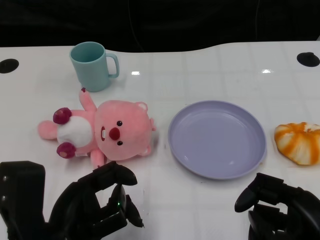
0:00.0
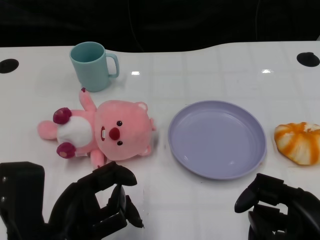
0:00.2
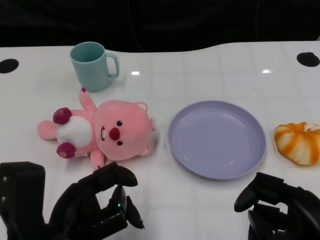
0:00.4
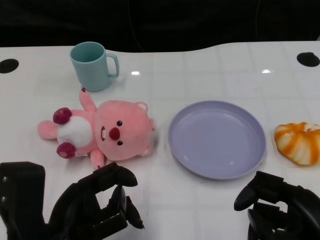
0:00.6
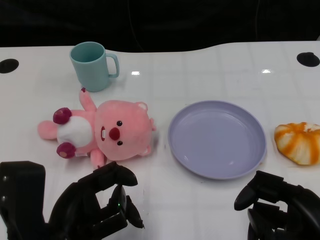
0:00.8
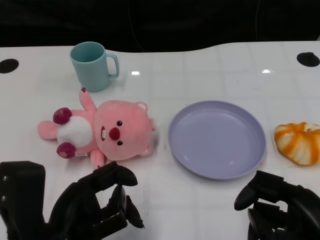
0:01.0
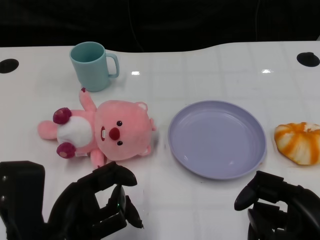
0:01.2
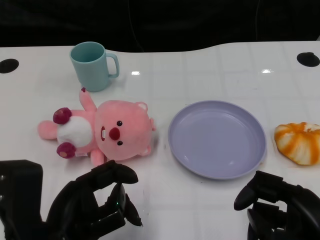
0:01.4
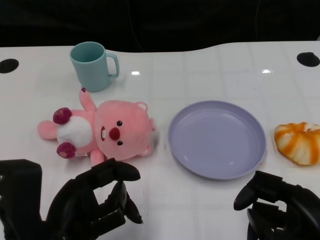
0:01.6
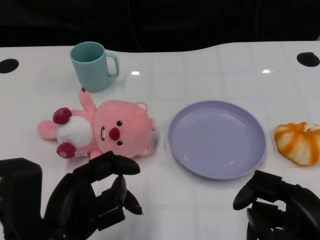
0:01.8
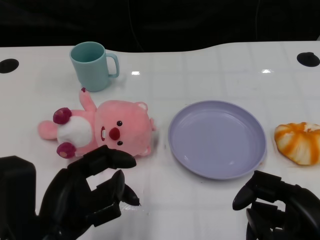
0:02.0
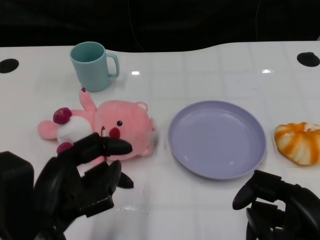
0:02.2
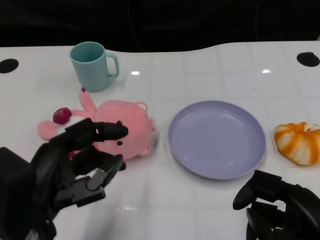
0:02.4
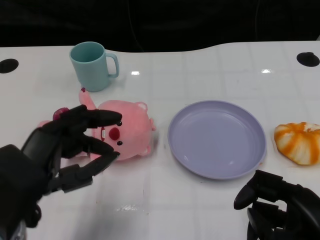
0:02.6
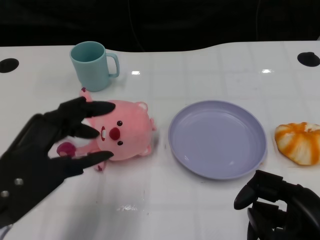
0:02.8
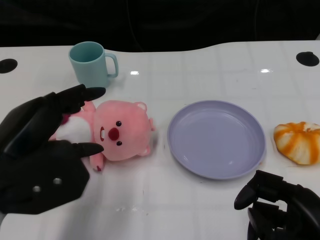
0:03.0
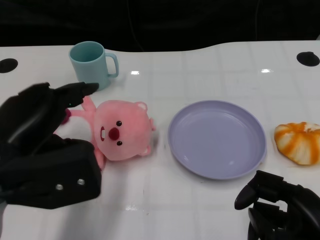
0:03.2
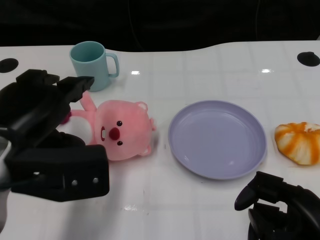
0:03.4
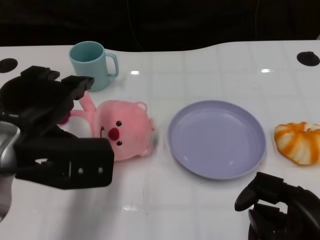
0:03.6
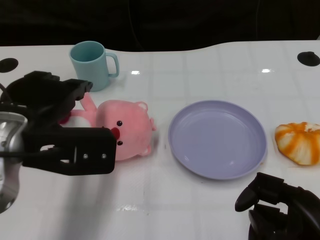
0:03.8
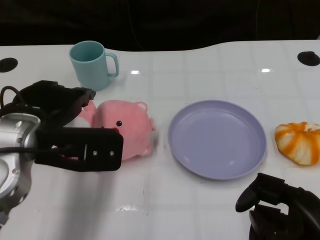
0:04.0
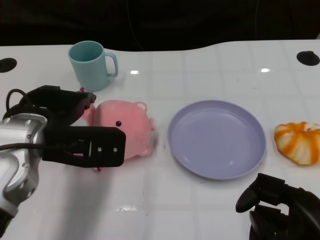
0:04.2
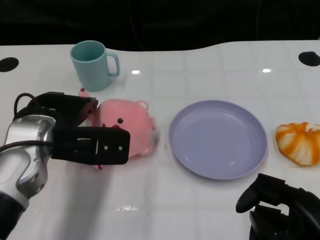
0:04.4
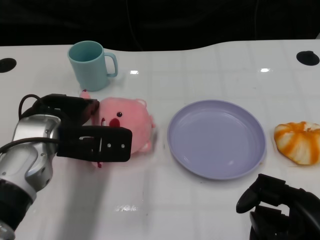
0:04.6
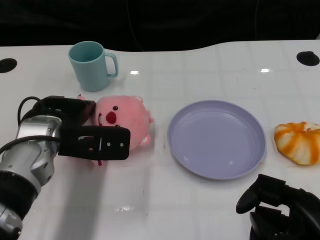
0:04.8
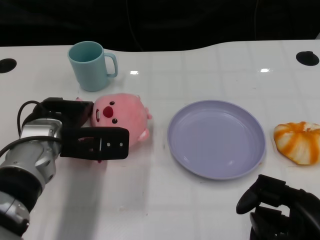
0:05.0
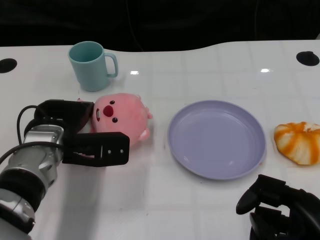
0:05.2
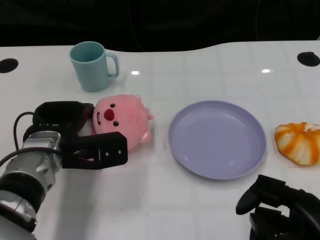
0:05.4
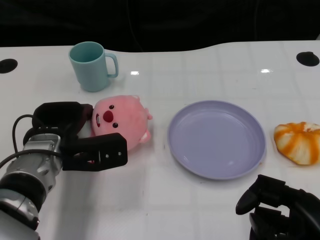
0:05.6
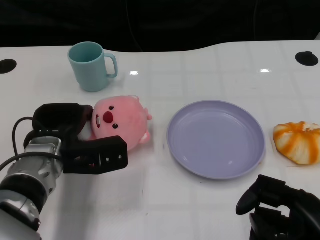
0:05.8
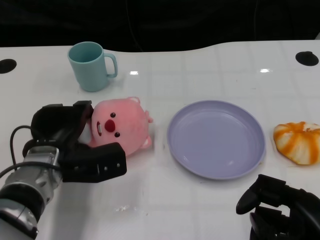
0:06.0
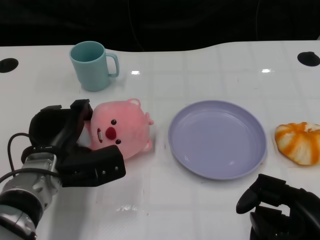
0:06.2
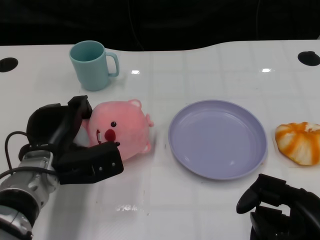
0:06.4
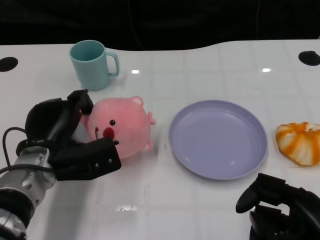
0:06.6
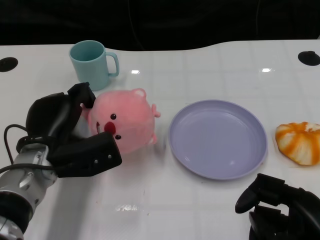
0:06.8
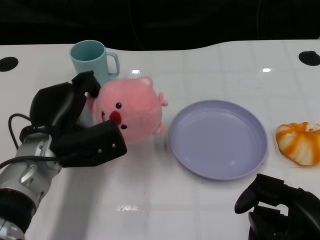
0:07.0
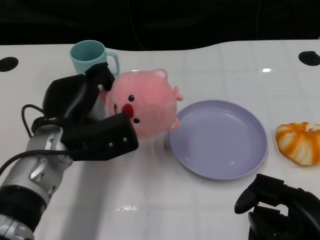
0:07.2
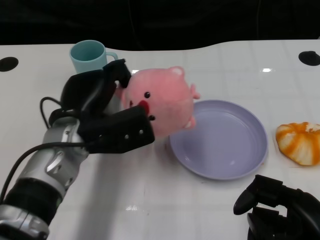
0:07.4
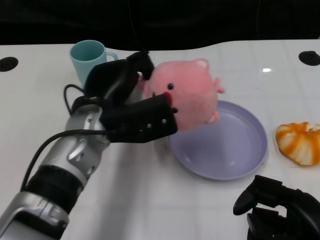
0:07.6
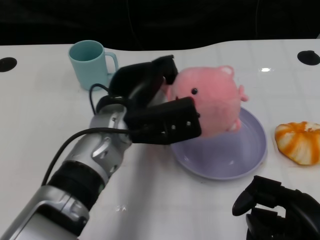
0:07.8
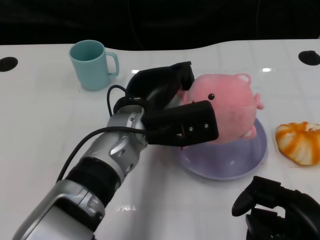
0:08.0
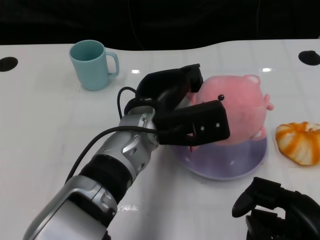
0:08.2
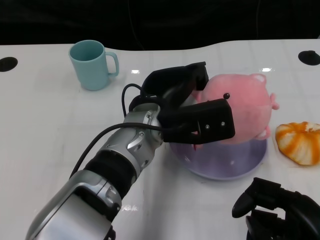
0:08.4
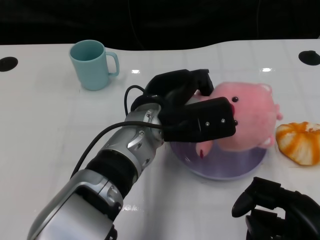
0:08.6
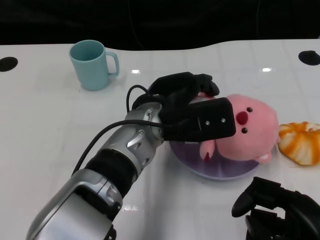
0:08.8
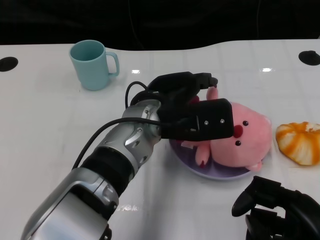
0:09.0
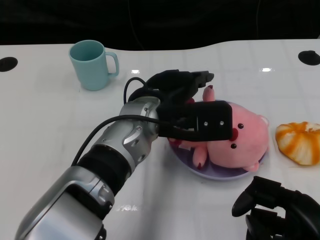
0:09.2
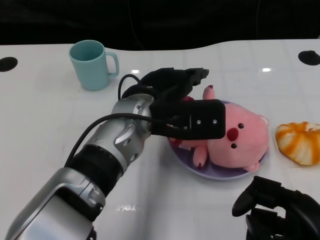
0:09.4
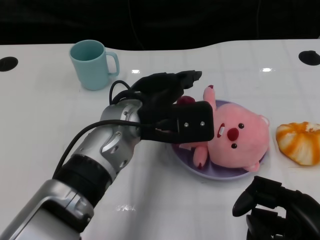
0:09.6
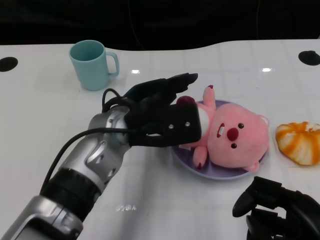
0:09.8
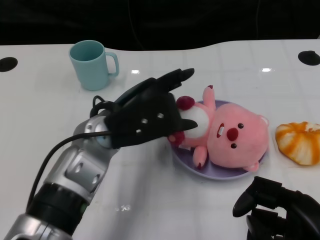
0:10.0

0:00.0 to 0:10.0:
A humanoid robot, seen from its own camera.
Task of the whole recording: Pick up the doll on one side of the plate and place it into the plate.
Step, 0:01.4 to 0:06.6: Grasp the pink doll with the left gripper.
Step, 0:07.0 to 0:09.6: Place the pink doll into the plate with the left gripper.
0:01.4 to 0:02.8: The left hand changes place by roughly 5 cm.
0:02.8 to 0:04.2: The left hand goes some 10 cm forward.
0:04.2 to 0:05.8: The left hand moves downward, about 10 cm.
0:07.2 to 0:08.6: The left hand is displaced to the right by about 15 cm.
0:08.6 to 0:10.0: The left hand moves to the left, approximately 5 cm.

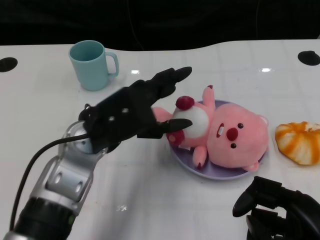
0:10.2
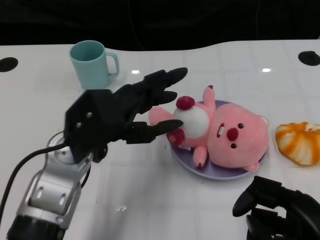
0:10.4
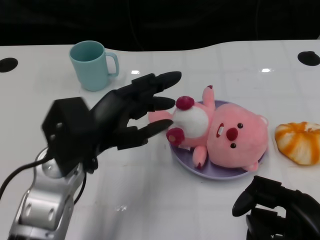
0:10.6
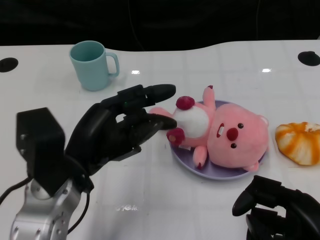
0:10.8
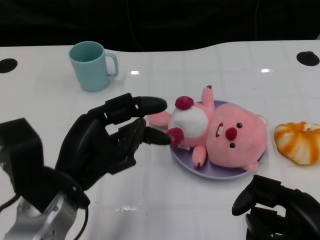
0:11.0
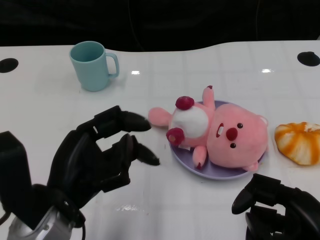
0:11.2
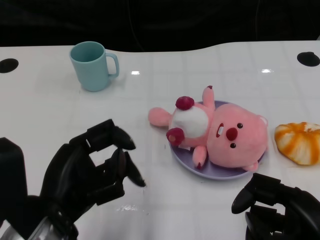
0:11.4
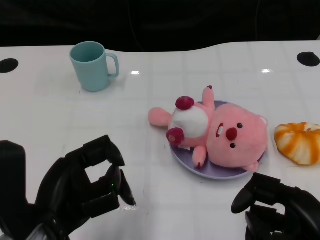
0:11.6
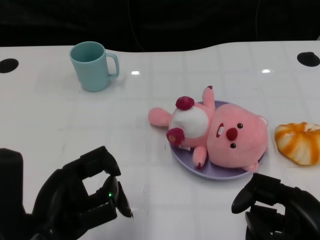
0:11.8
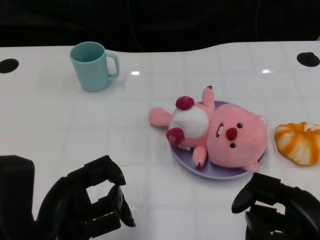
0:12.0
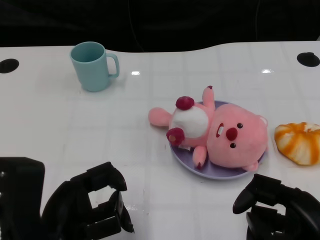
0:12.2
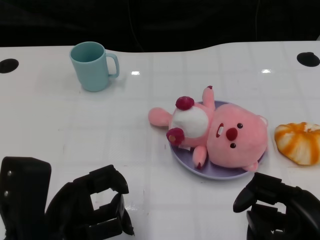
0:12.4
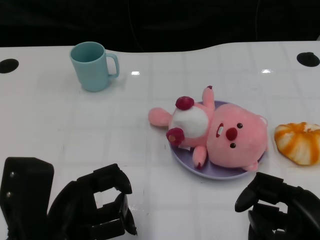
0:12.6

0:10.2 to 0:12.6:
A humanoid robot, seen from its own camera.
Task of the whole recording: Pick up the doll on one side of the plate and place it into the plate.
0:10.2 to 0:11.4: The left hand moves backward and to the left, approximately 15 cm.

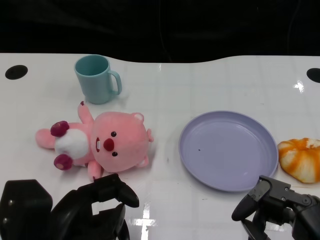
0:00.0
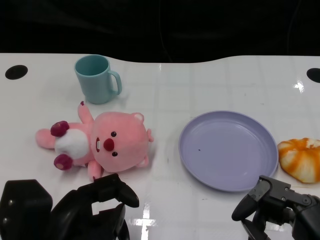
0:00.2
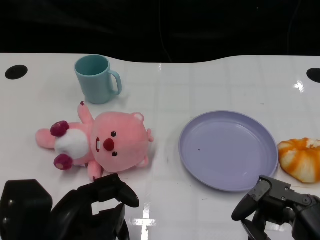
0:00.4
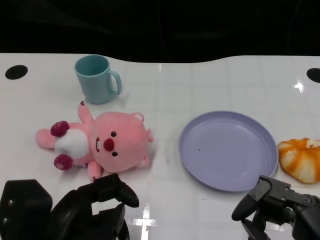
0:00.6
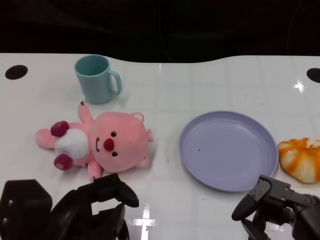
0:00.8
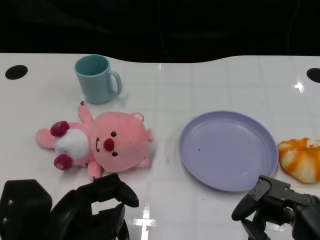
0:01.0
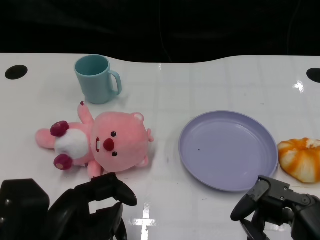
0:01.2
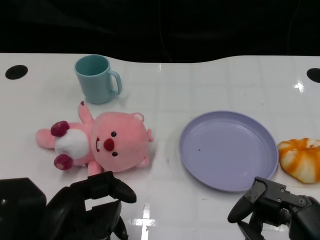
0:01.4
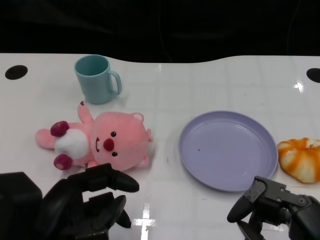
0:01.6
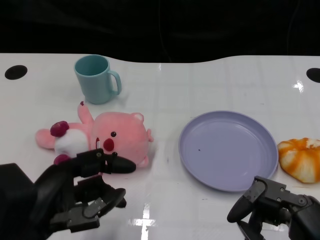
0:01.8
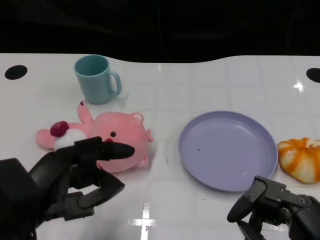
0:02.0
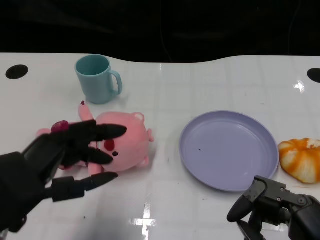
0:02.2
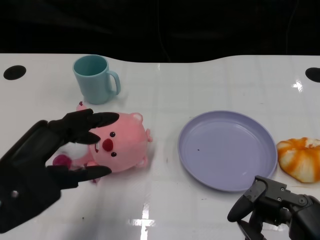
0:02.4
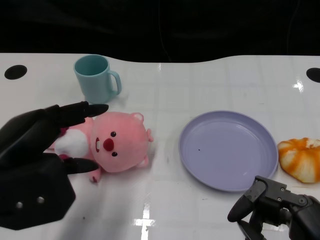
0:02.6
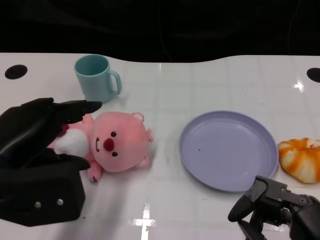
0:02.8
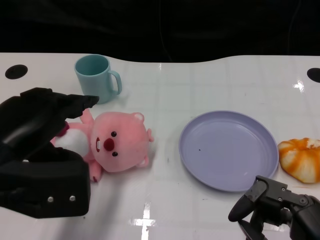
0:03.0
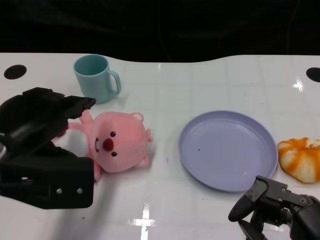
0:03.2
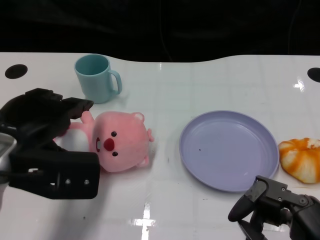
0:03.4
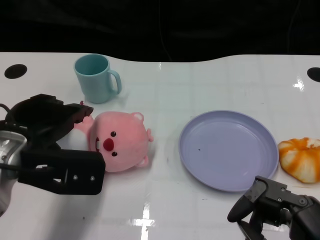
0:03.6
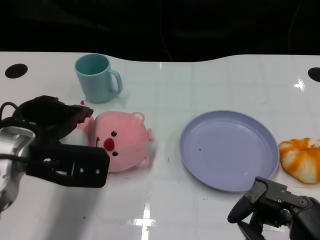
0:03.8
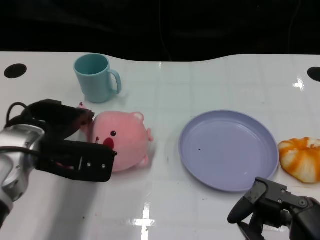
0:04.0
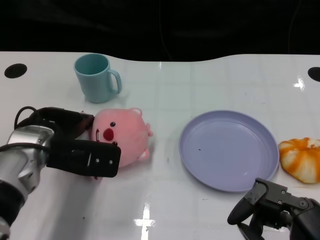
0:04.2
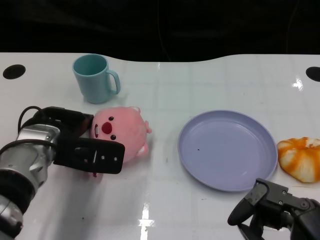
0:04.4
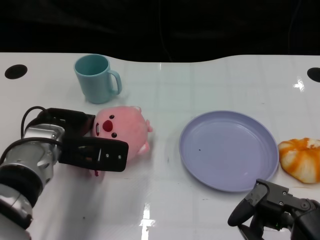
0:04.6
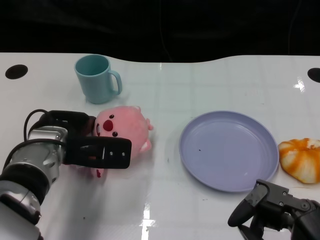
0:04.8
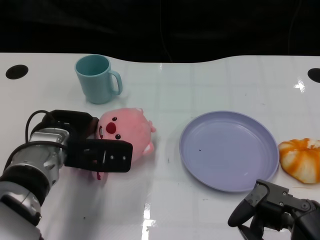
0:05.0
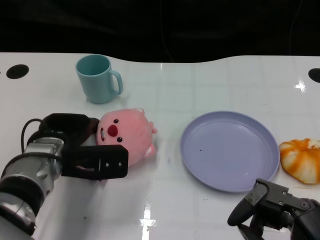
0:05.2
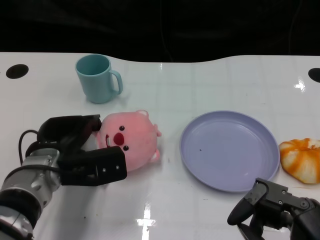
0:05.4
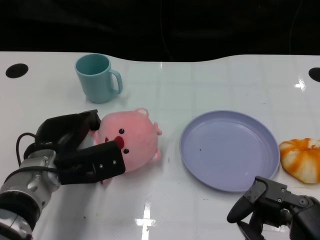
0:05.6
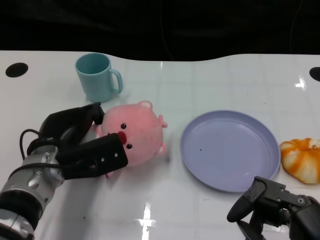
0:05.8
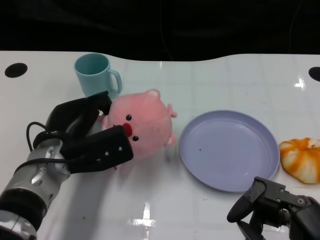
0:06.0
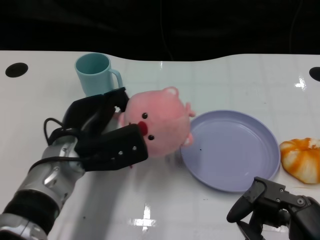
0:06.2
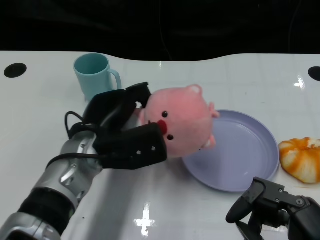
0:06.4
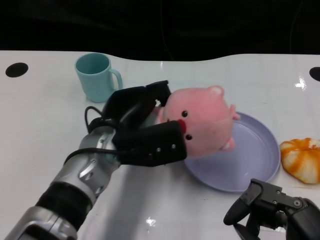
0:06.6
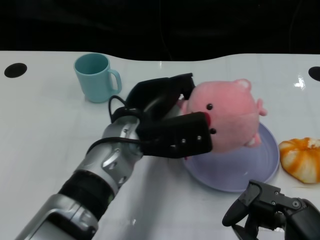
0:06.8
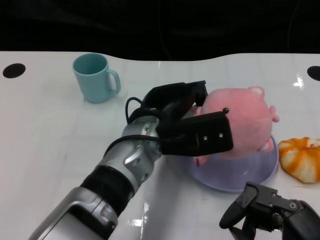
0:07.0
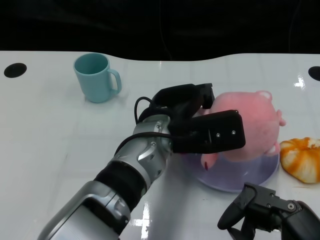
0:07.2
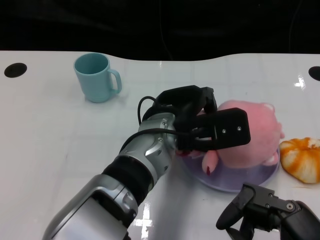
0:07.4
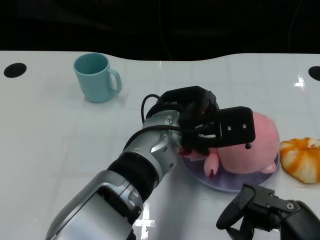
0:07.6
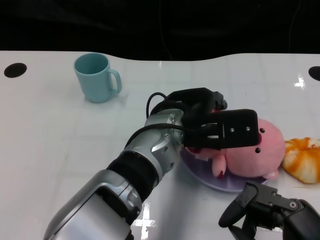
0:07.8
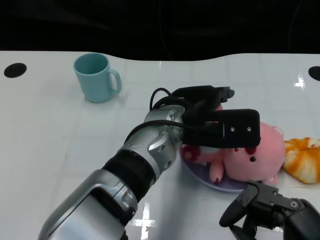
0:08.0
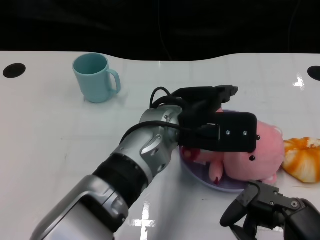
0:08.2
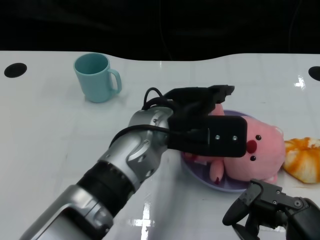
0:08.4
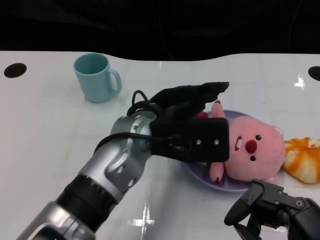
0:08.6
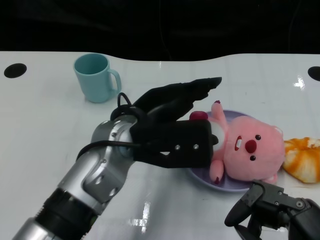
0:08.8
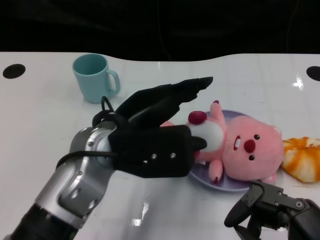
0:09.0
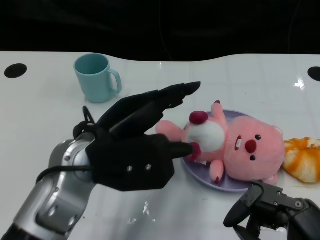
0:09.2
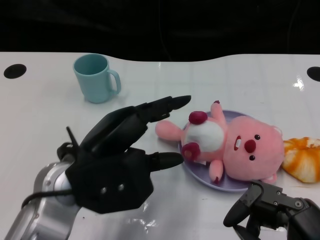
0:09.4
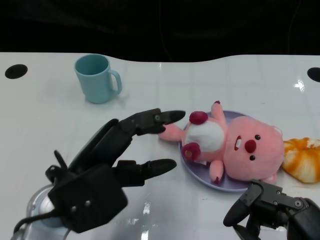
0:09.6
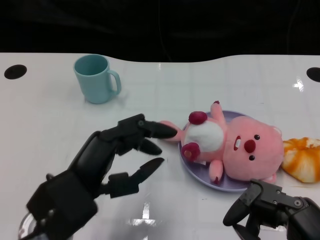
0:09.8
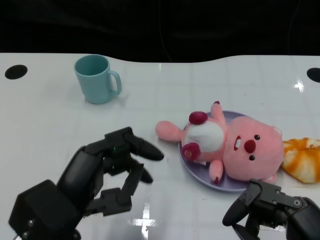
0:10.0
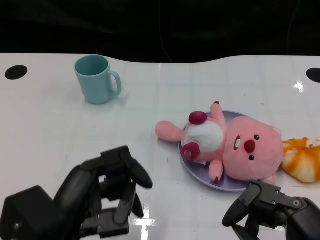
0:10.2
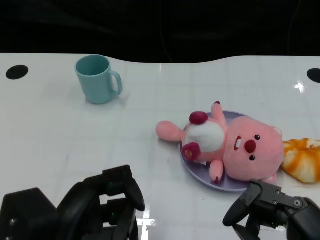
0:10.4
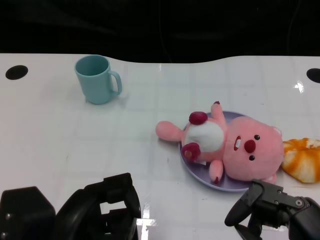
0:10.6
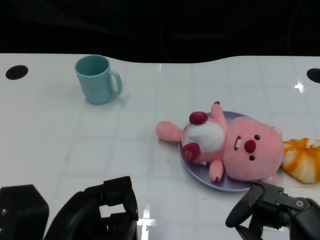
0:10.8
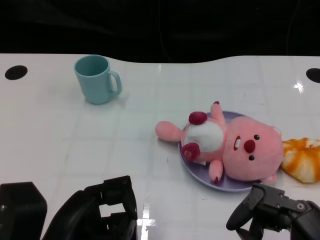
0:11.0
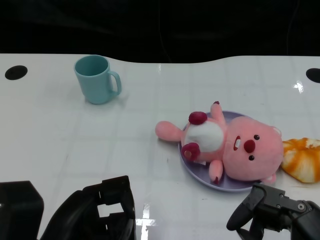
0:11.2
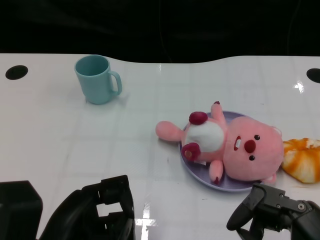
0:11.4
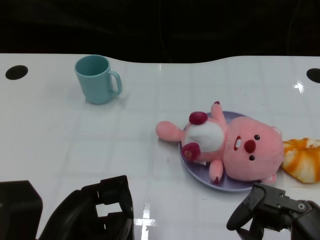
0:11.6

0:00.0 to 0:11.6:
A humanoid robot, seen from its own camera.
Task of the whole recording: Pick up the doll on one side of the plate and place it into the plate.
Step, 0:01.2 to 0:05.6: Grasp the pink doll with the left gripper.
Step, 0:05.8 to 0:08.0: Place the pink doll into the plate with the left gripper.
0:01.4 to 0:02.8: The left hand heads upward and forward, covering about 10 cm.
0:02.8 to 0:04.4: The left hand shifts roughly 15 cm forward and downward.
0:05.8 to 0:07.2: The left hand moves to the right, roughly 15 cm.
0:07.2 to 0:08.8: The left hand is displaced to the left by about 5 cm.
0:08.8 to 0:10.2: The left hand shifts about 15 cm backward and to the left.
